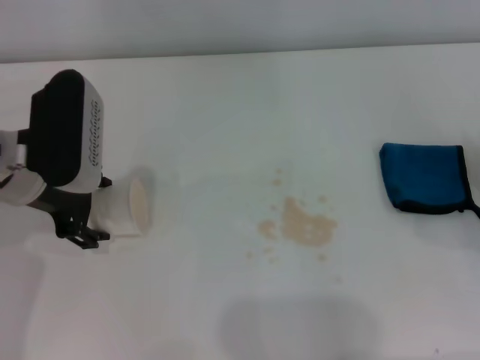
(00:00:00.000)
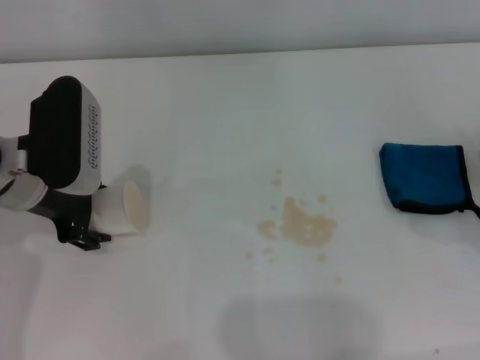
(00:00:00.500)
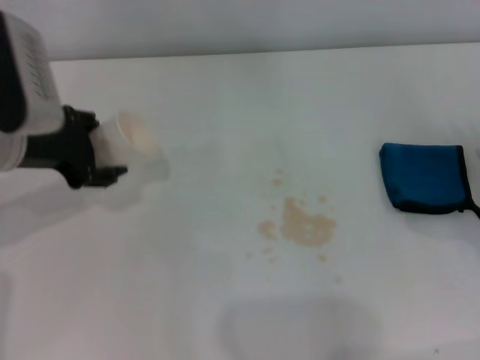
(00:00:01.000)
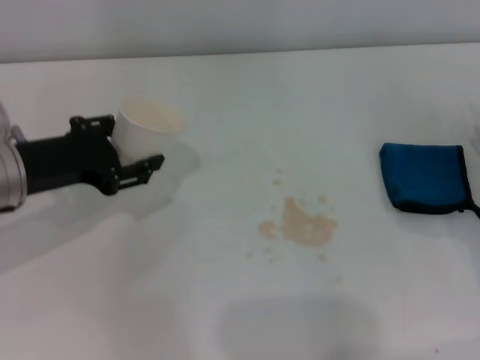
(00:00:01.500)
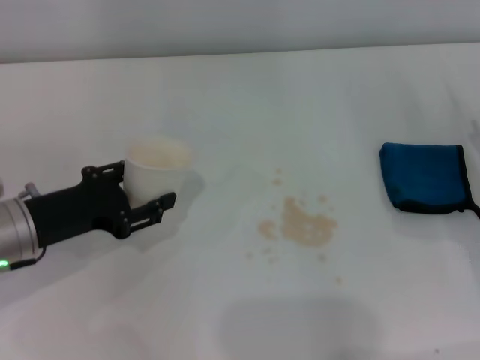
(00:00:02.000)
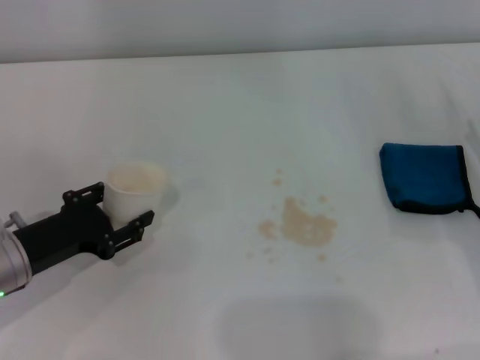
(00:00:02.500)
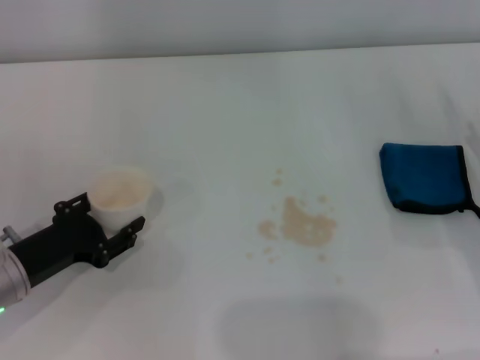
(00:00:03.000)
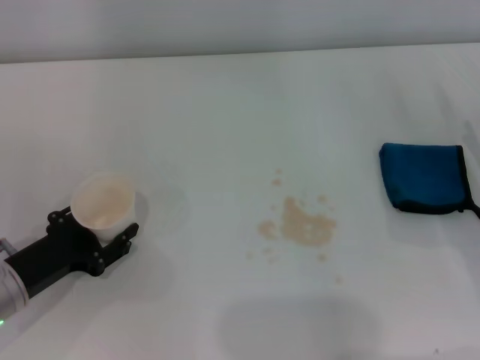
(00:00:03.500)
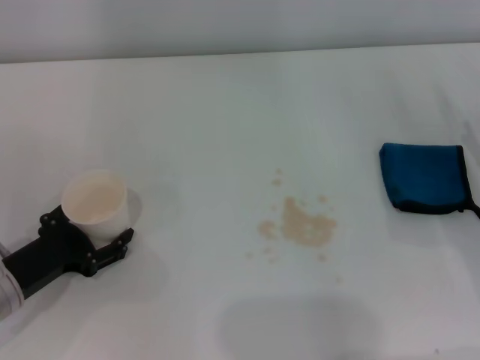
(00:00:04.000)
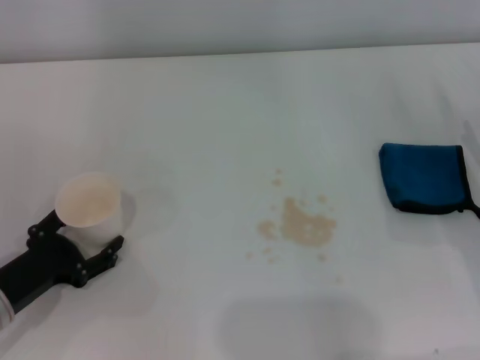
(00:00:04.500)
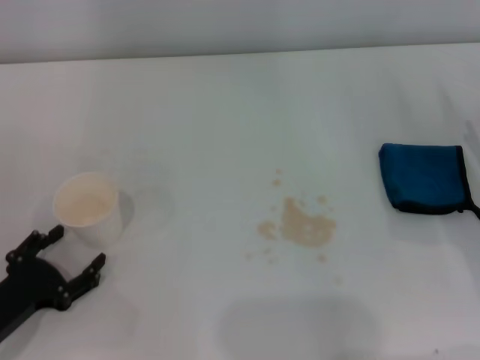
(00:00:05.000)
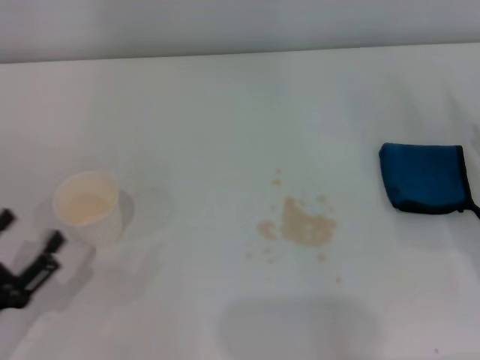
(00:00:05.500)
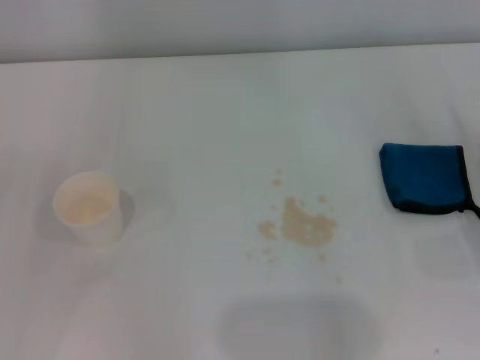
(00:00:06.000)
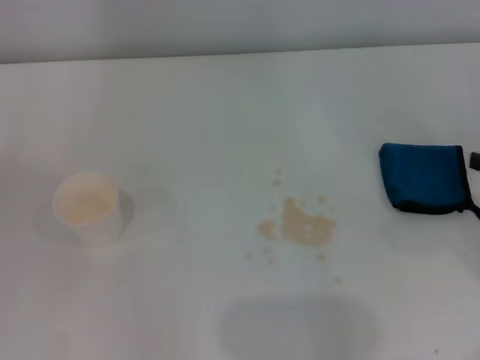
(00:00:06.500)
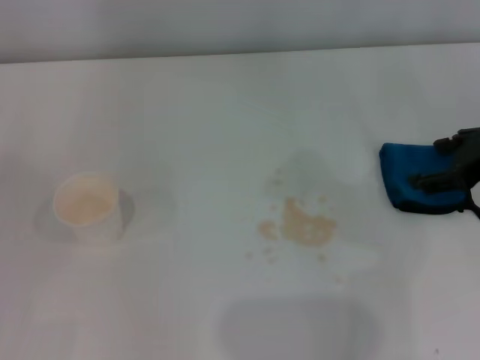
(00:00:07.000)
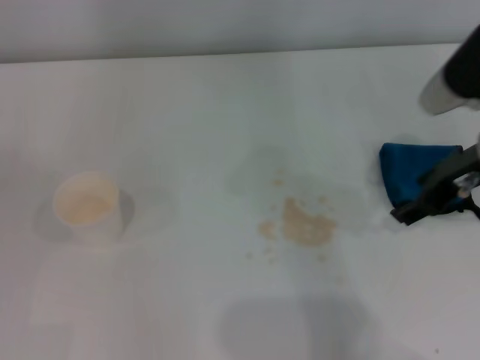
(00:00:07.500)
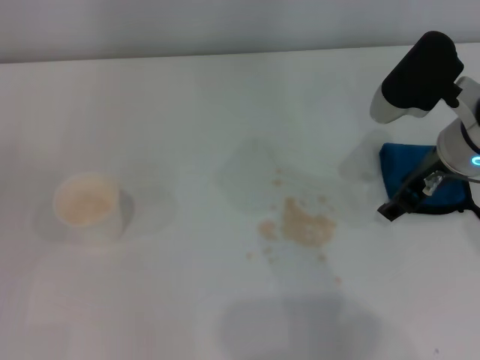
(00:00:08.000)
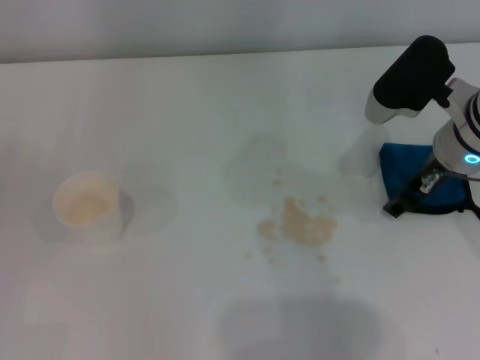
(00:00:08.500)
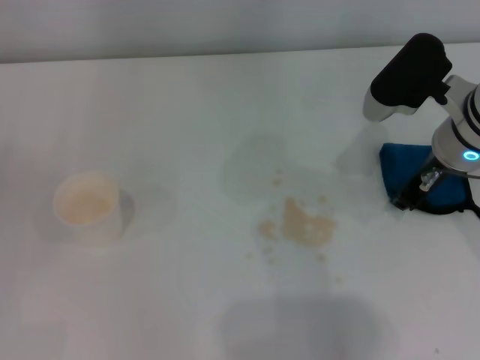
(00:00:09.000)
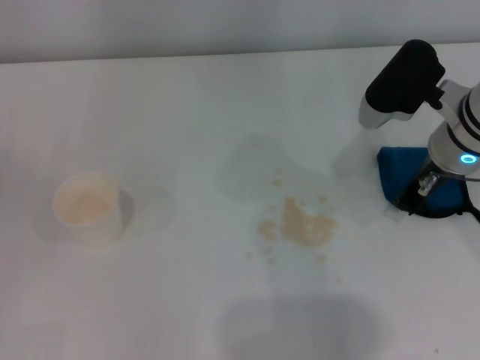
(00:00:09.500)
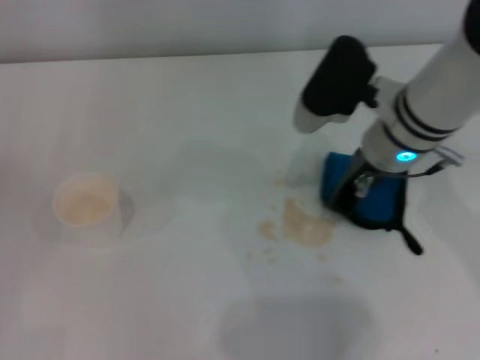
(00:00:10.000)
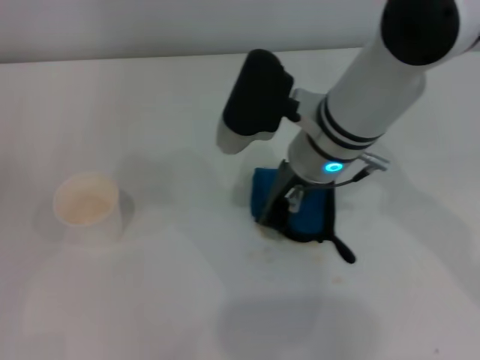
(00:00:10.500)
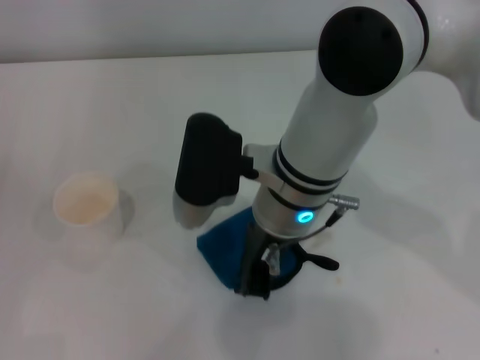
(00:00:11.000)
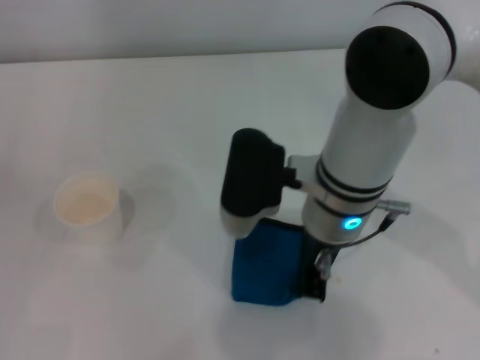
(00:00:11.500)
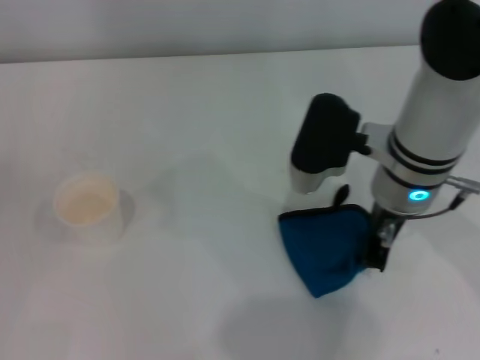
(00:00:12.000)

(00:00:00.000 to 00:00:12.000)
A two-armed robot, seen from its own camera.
Step, 00:00:00.500 - 00:00:04.500: Stand the paper cup upright with the left gripper.
Step, 00:00:05.000 - 00:00:09.500: Grasp the rag with the right gripper.
00:00:00.000 - 00:00:02.000: The left gripper moves downward and backward, some 10 cm, and closes its fingers.
00:00:02.000 - 00:00:04.000: The left gripper goes roughly 5 cm downward, and opens.
00:00:04.000 - 00:00:06.000: The left gripper moves backward, to the left and upward, approximately 15 cm.
00:00:06.000 - 00:00:08.000: The right gripper travels to the left, forward and upward by roughly 20 cm.
00:00:08.000 - 00:00:10.000: The right gripper moves to the left, about 5 cm, and closes its fingers.
00:00:10.000 - 00:00:12.000: The right gripper travels to the left and back again, roughly 10 cm each way.

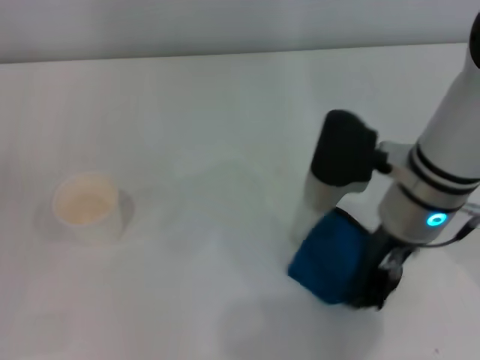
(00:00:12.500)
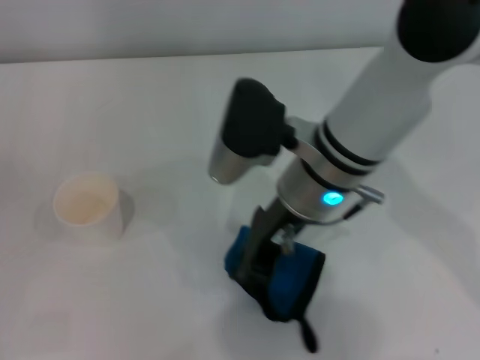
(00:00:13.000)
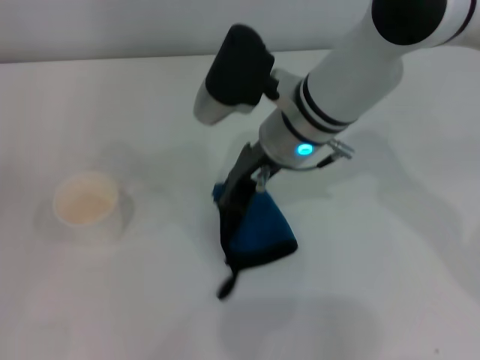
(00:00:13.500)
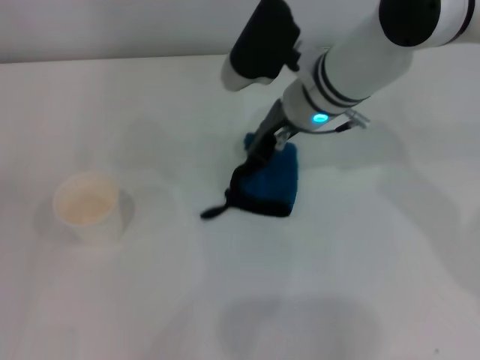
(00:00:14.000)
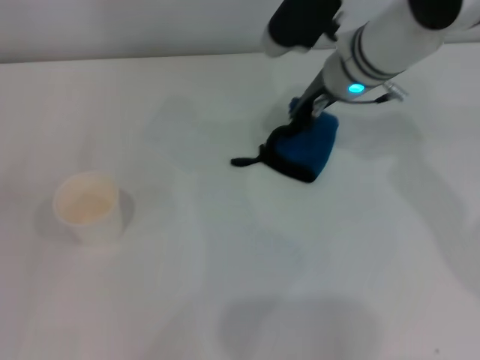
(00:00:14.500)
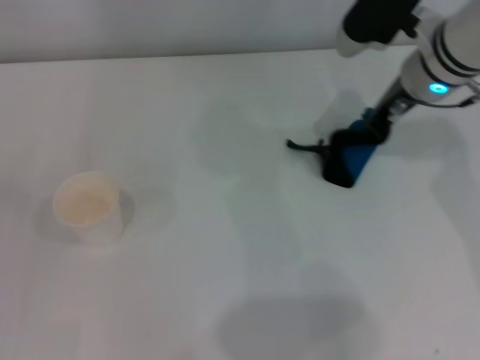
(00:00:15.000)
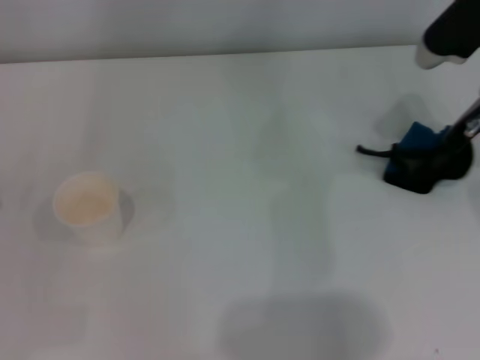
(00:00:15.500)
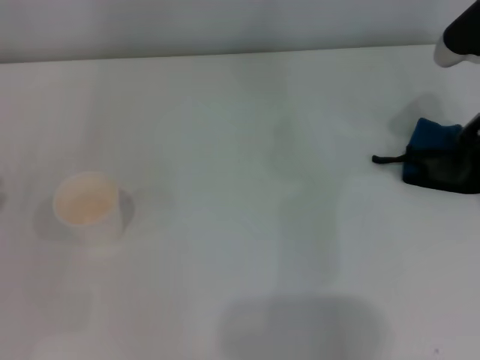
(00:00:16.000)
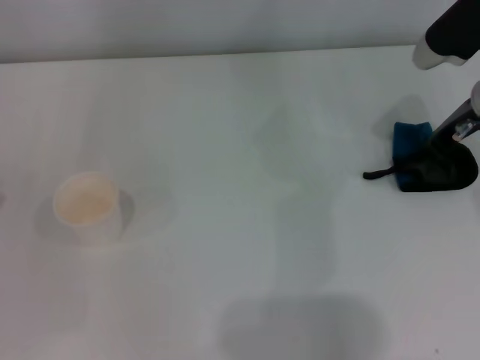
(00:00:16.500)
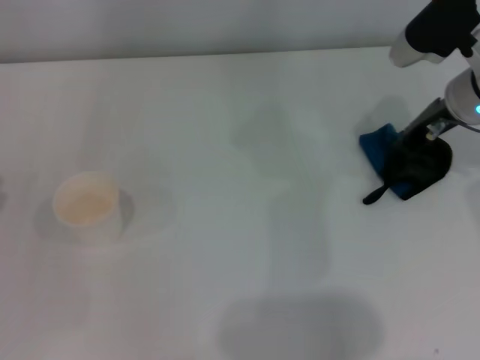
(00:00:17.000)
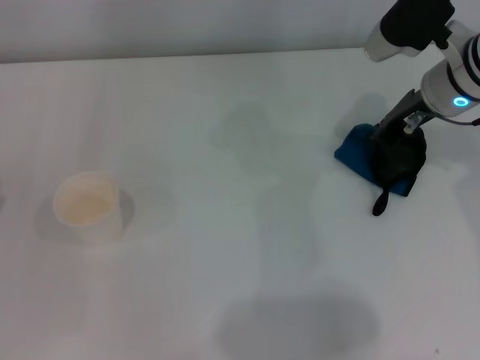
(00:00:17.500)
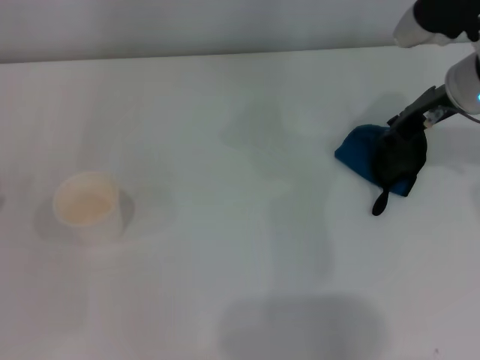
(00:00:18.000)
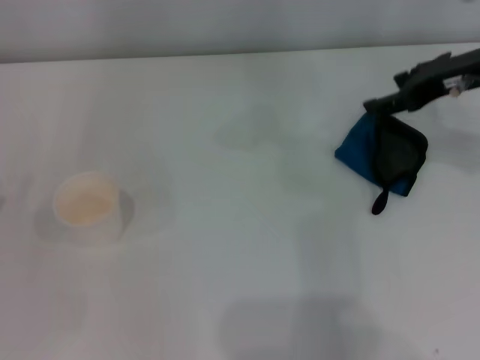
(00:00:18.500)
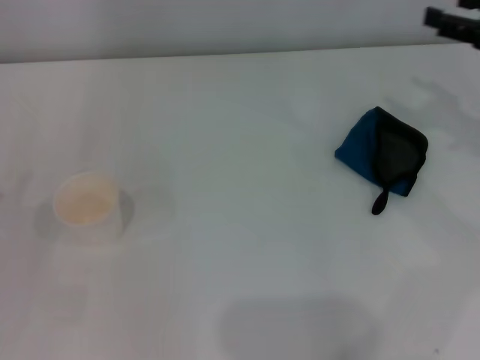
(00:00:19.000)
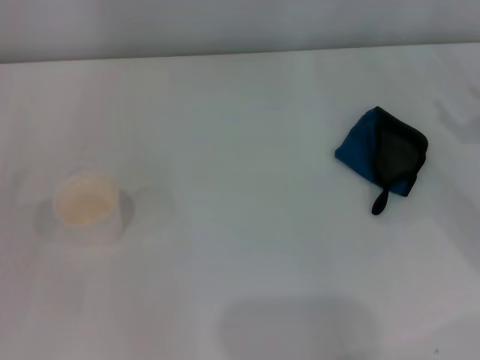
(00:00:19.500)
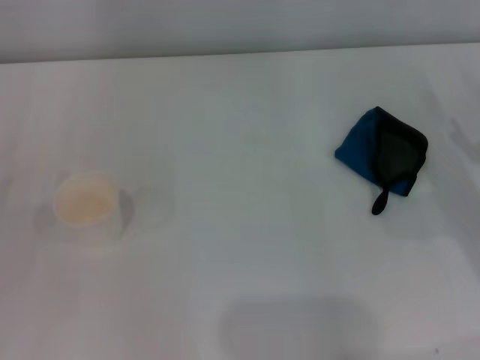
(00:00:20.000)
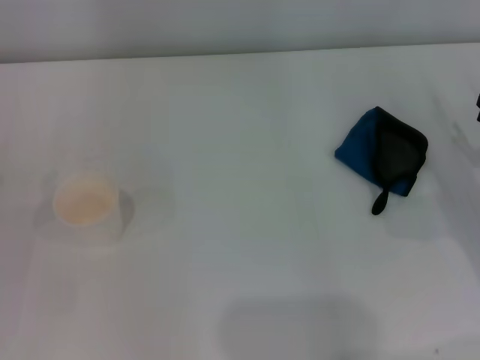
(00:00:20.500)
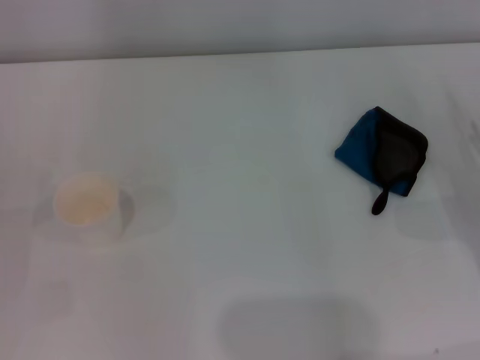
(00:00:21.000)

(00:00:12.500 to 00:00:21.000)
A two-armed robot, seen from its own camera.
Step, 00:00:12.500 - 00:00:16.500: Wipe the stains off the table with the right gripper.
Step, 00:00:17.000 - 00:00:17.500: Place the rag on the table with the right gripper.
00:00:12.500 - 00:00:14.500: The right gripper is displaced forward by roughly 15 cm.
00:00:14.500 - 00:00:16.500: The right gripper is displaced to the right by roughly 15 cm.
00:00:16.500 - 00:00:19.000: The right gripper travels to the right and backward by about 10 cm, and opens up.
00:00:19.000 - 00:00:21.000: The right gripper is displaced downward and backward by some 15 cm.
